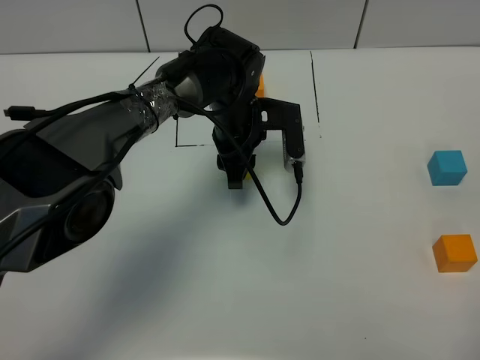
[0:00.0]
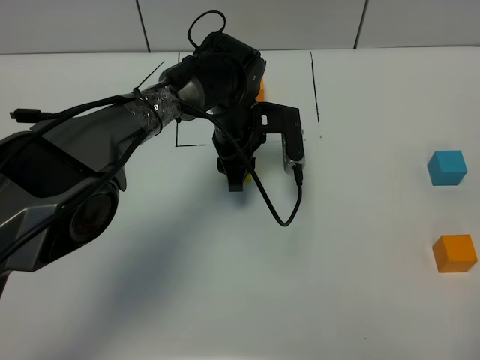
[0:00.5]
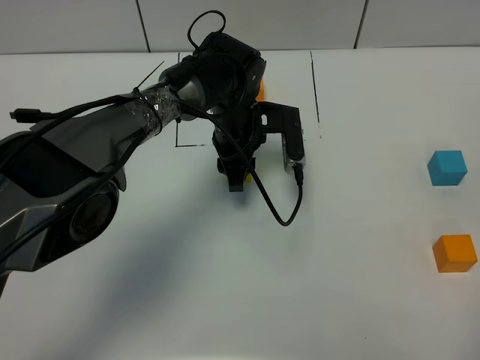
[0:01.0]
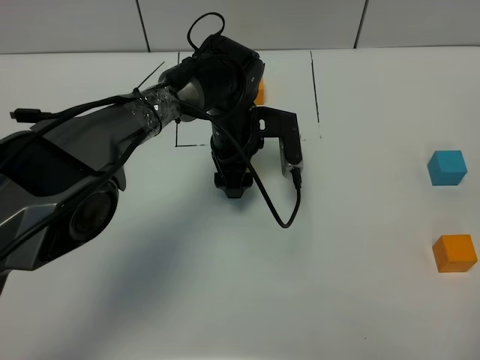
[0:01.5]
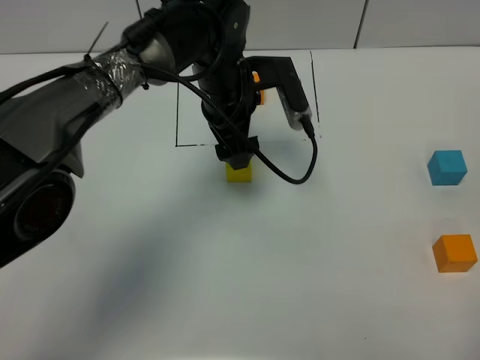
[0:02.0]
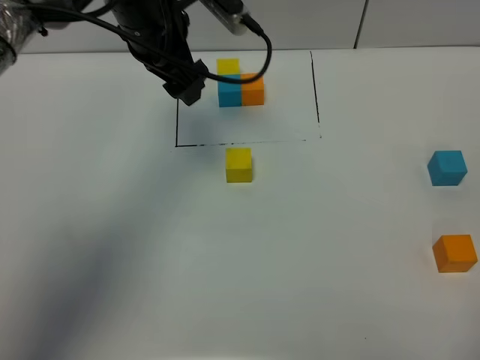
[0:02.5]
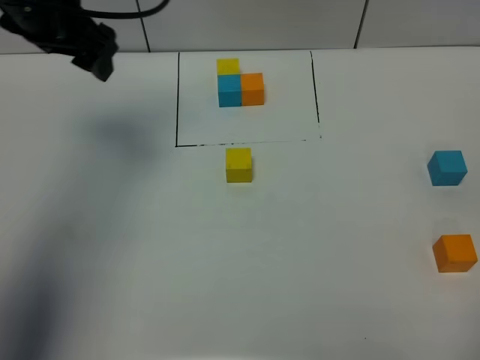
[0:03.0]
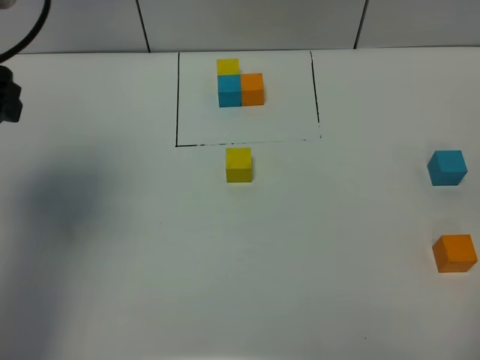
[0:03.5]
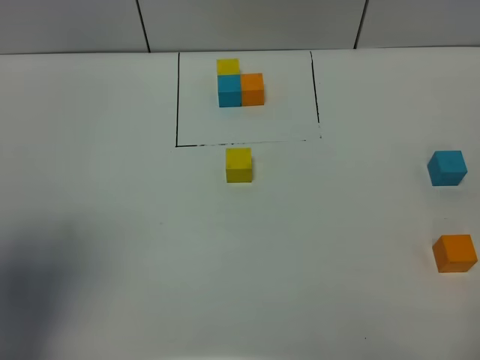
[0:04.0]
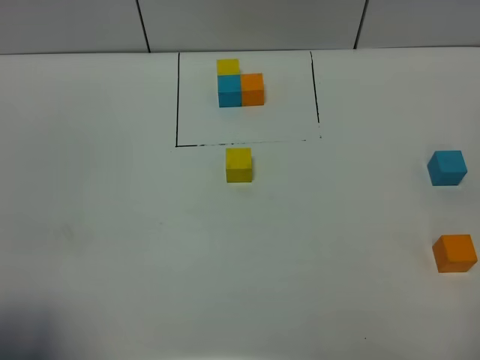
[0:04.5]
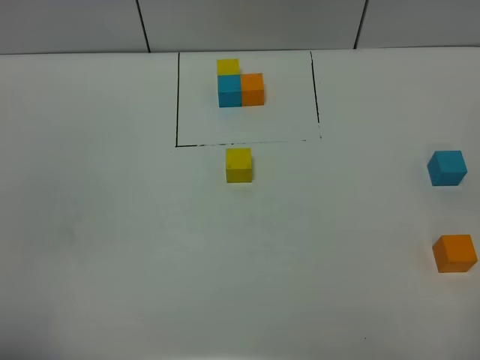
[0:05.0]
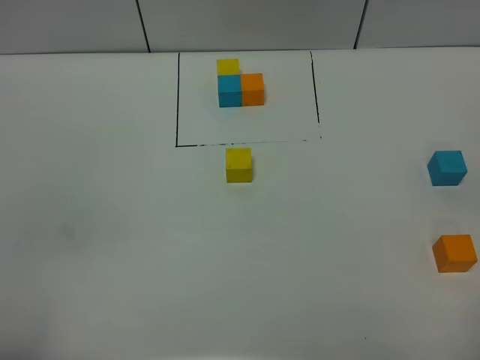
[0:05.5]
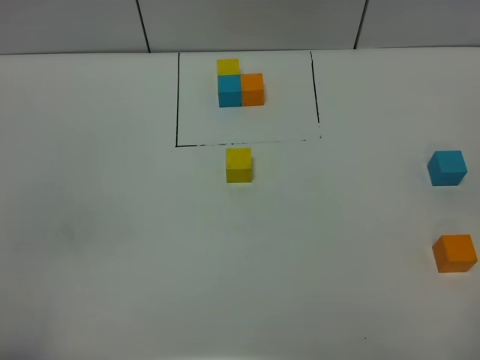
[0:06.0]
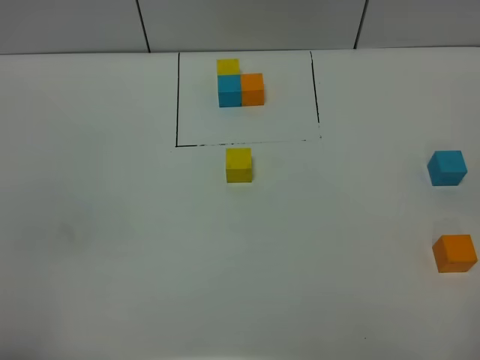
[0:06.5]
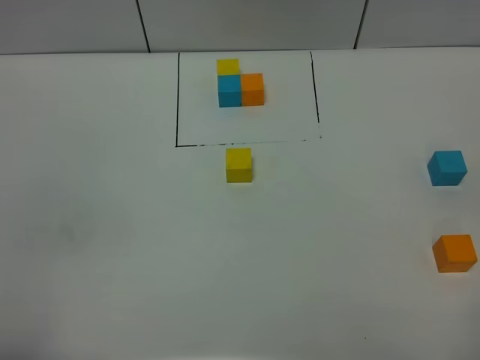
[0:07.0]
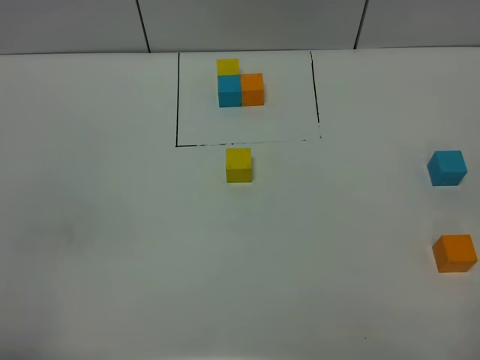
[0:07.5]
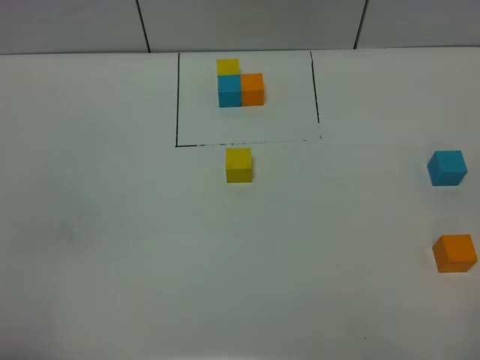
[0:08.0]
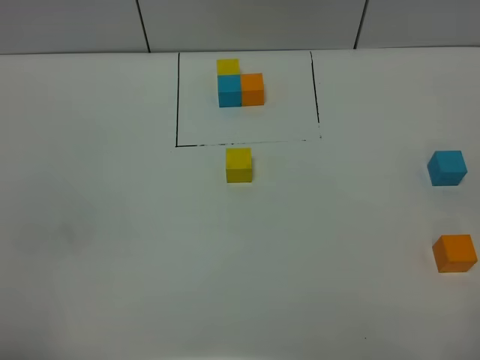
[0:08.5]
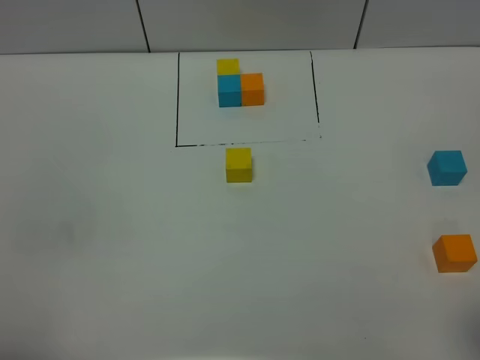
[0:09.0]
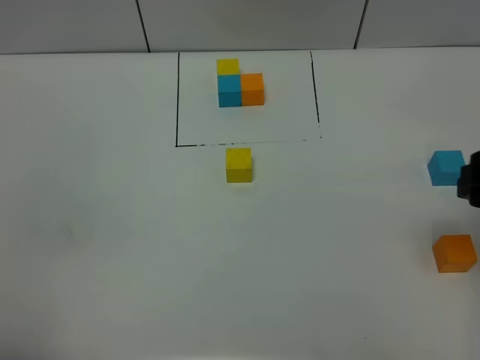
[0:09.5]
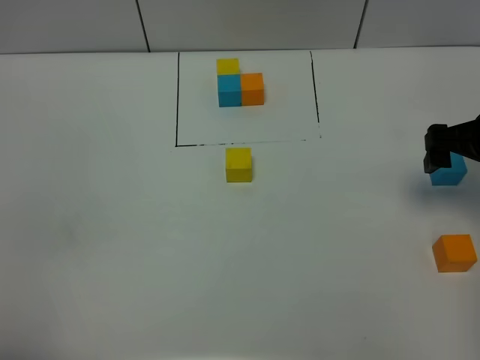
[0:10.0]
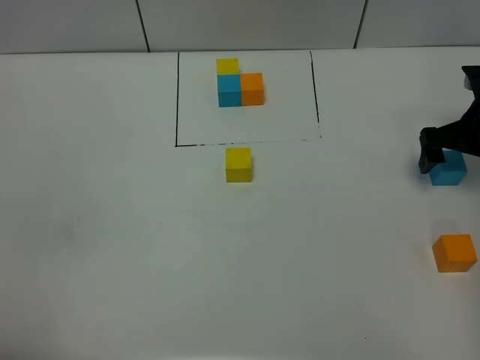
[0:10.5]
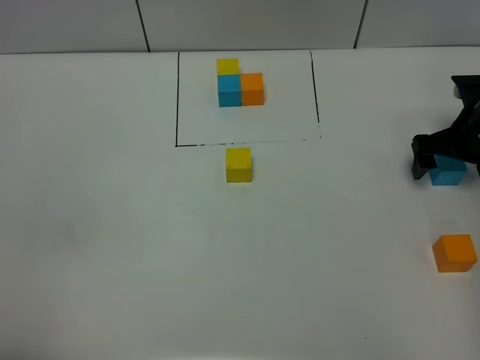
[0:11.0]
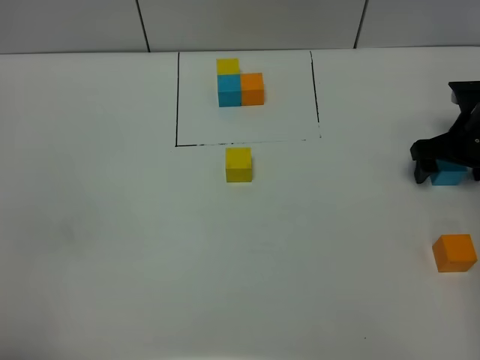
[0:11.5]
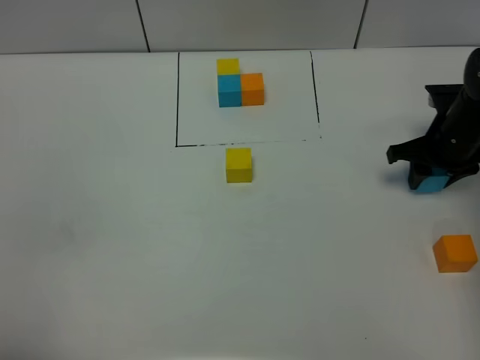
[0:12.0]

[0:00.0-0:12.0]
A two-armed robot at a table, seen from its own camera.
Task of the whole recording: According to the building block template in front, assemble the scattered blocks together.
0:00.0 to 0:02.0: The left gripper shifts about 10 cm upward, and opens up.
0:02.0 to 0:04.0: The left gripper is displaced backward, to the left and upward by some 40 cm.
0:04.0 to 0:06.0: The left gripper goes some 15 cm backward and downward.
0:08.0 to 0:10.0: The right gripper shifts some 30 cm forward.
0:10.0 to 0:12.0: The right gripper moves downward and forward, approximately 10 cm, and closes its fingers.

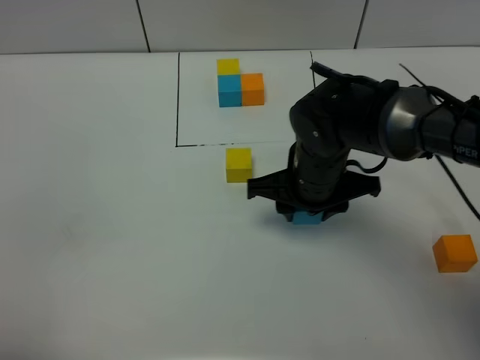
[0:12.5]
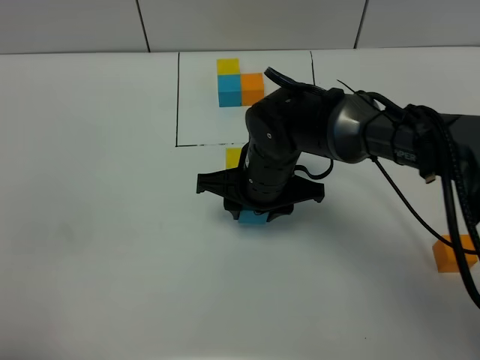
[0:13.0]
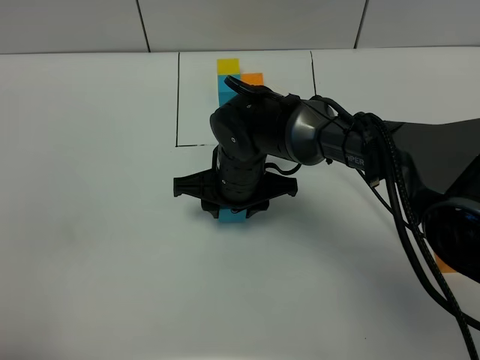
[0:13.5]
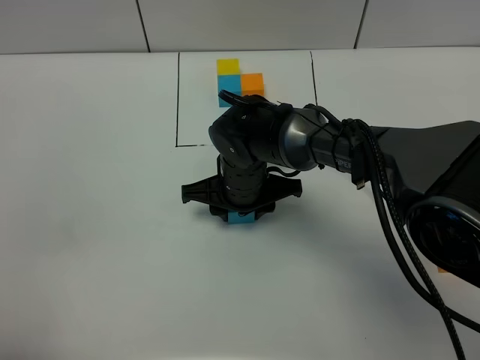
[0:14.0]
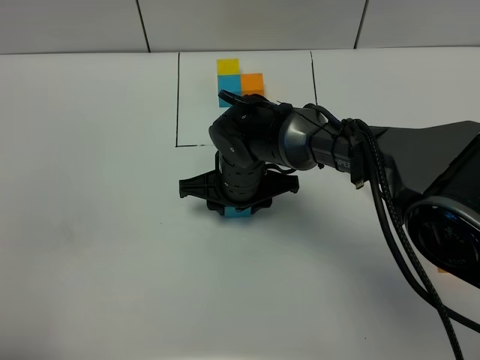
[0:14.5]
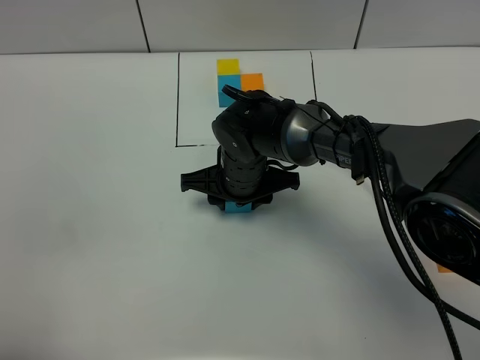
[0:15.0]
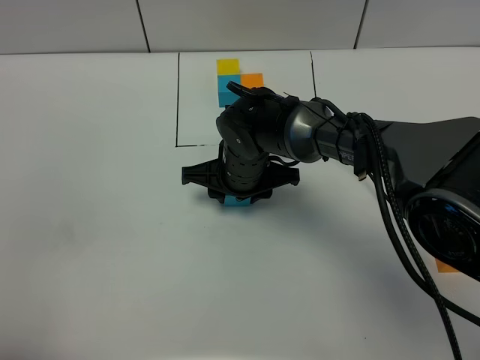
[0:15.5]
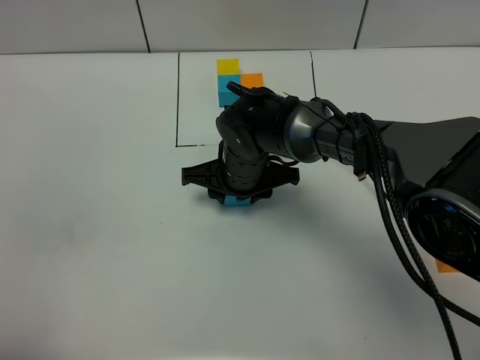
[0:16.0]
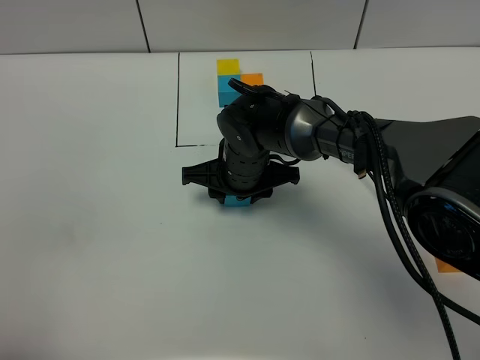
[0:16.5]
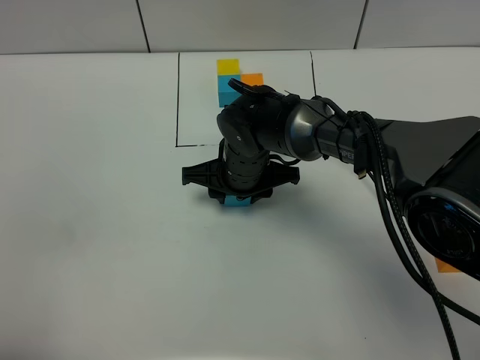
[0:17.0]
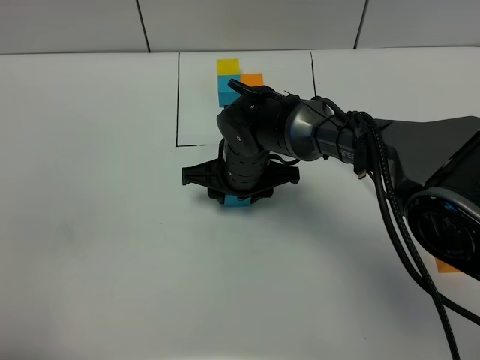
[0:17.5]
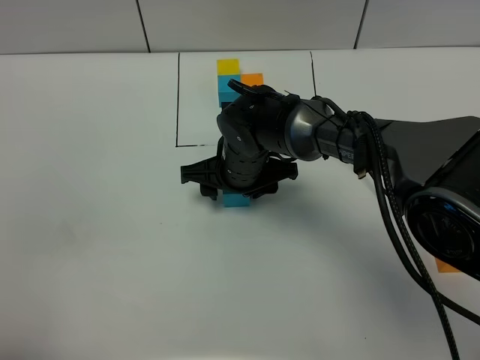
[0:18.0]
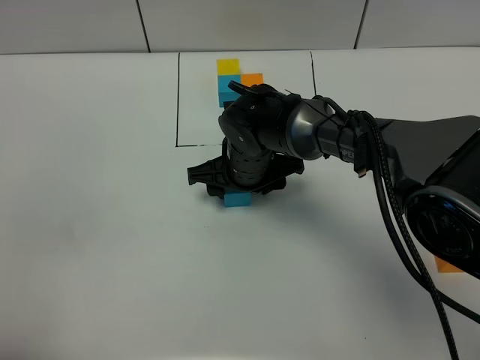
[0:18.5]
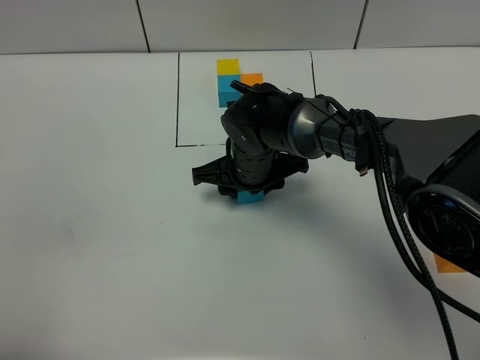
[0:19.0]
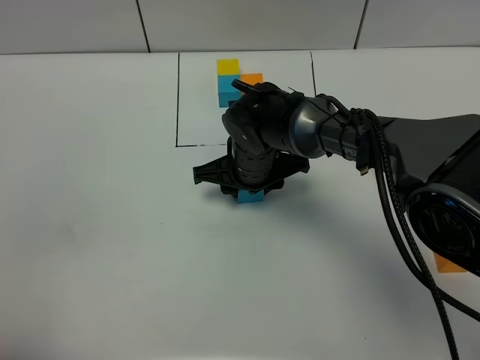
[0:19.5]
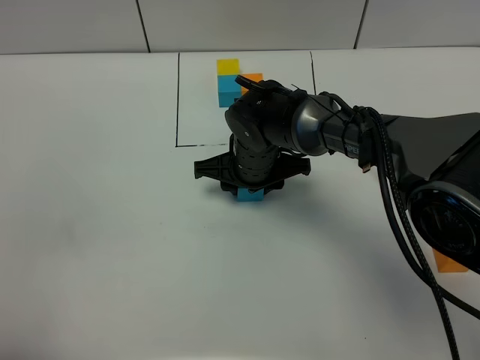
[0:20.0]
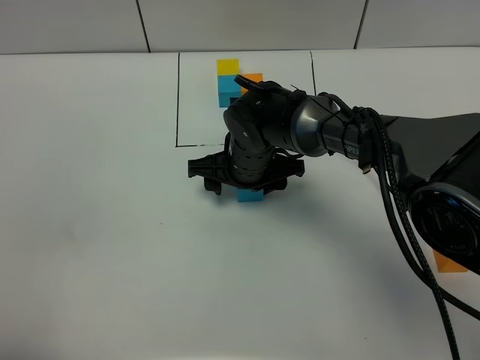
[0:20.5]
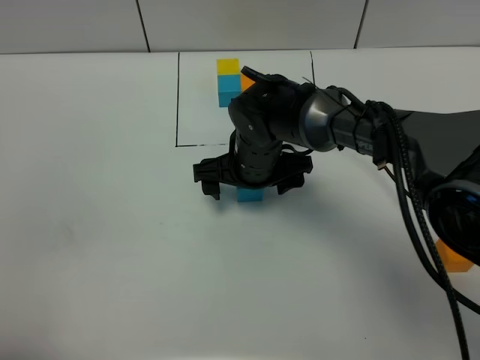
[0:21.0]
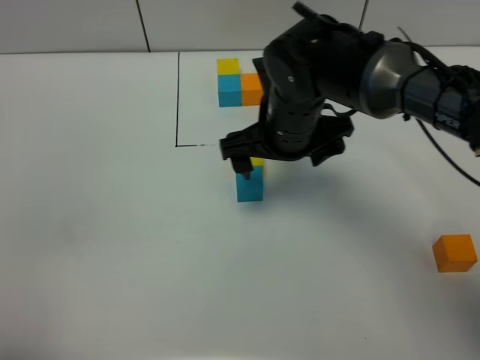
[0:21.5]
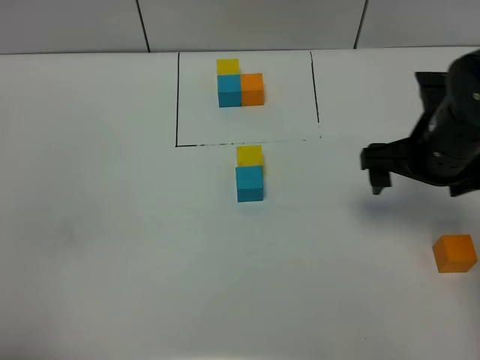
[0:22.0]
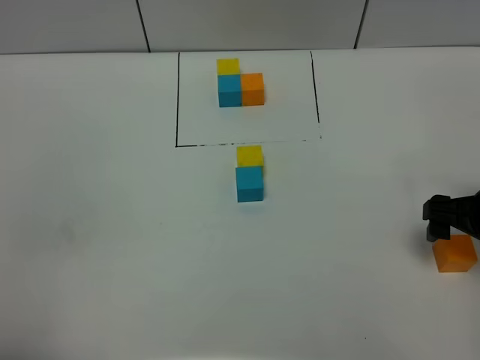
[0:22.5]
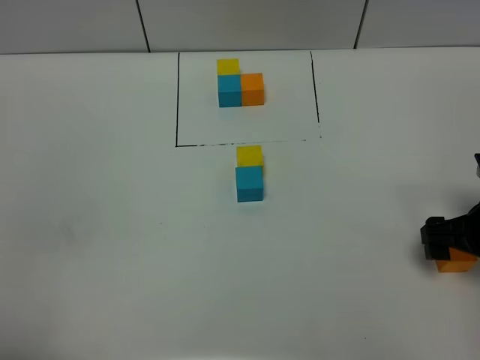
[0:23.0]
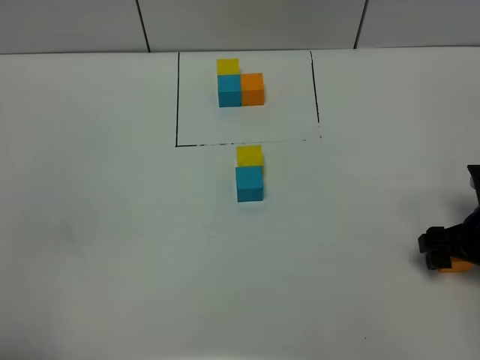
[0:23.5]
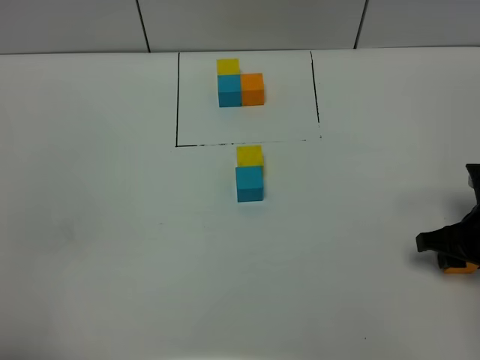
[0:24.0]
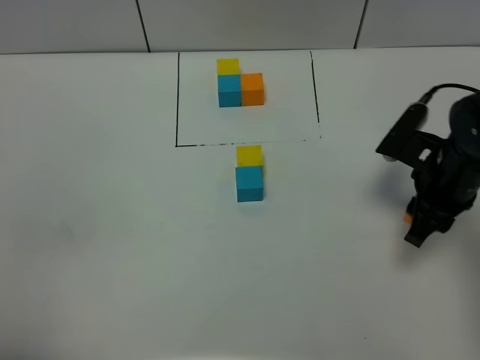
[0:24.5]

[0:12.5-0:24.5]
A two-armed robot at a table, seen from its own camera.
Task of the whole recording: According to the building block template in front, assemble the scattered blocks together.
Step, 0:12.5 to 0:18.0: Put the blue build block on the behind of the yellow build block.
0:12.5 to 0:14.5: The right gripper travels to the left by approximately 10 cm.
0:14.5 to 0:16.5: The grippers make only small movements.
0:16.5 to 0:18.5: The right gripper opens up.
0:18.5 to 0:20.5: The right gripper closes and opens again.
0:20.5 to 0:22.5: The right gripper goes some 30 cm to the right and backward, and opens its fingers.
0:22.5 to 0:24.5: The right gripper shifts approximately 10 cm forward and to the left, and closes up.

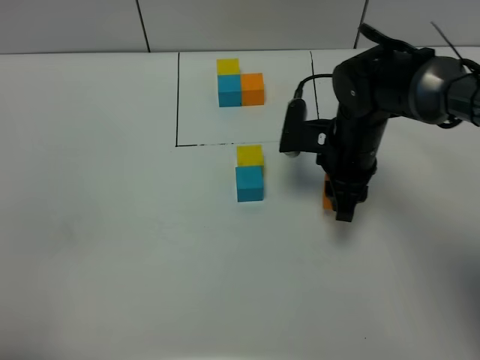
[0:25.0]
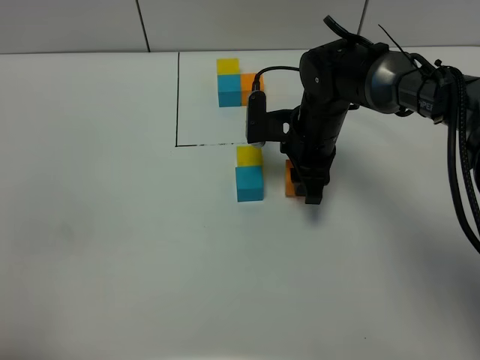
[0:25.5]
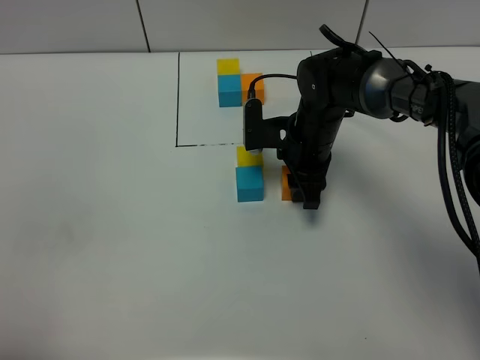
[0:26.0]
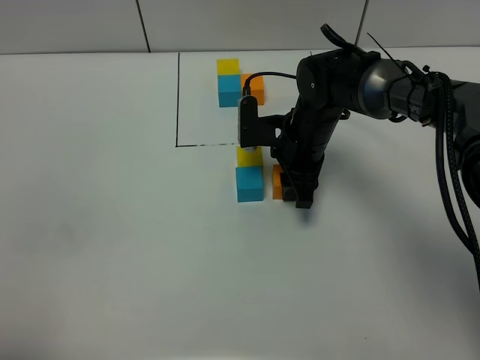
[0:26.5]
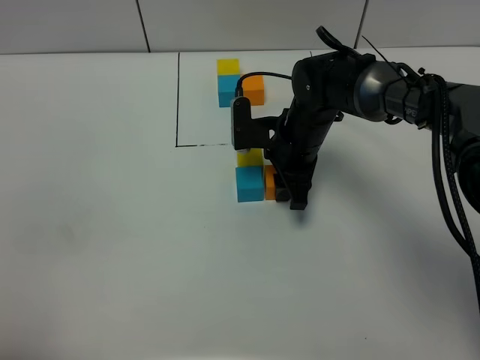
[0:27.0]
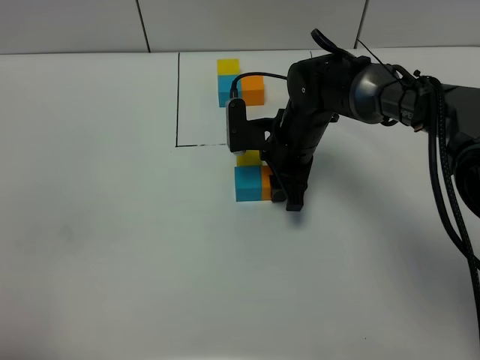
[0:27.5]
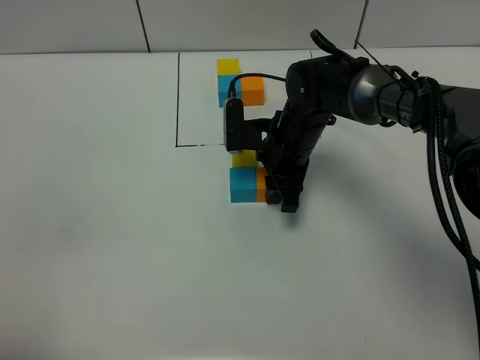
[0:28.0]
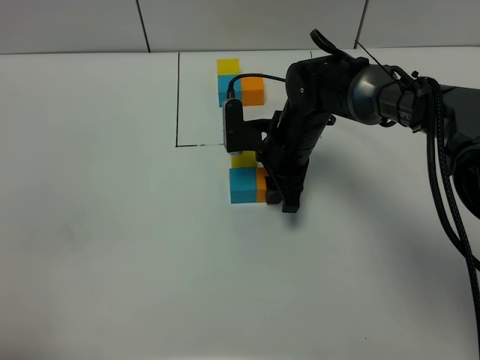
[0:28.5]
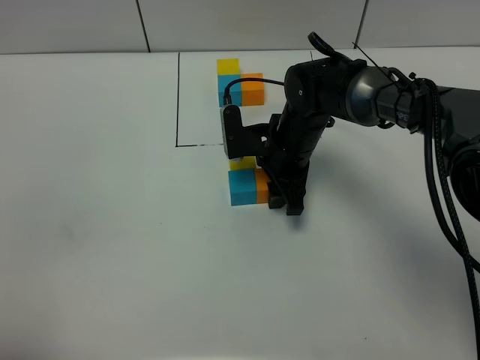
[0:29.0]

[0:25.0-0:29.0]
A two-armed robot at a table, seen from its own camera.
Task of the whole recording: According to the building block template in front, assemble the scattered blocks together.
0:25.0 to 0:27.0: The right gripper ends up some 5 cm from where it was.
0:27.0 to 0:29.0: Both grippers stay about where they are.
